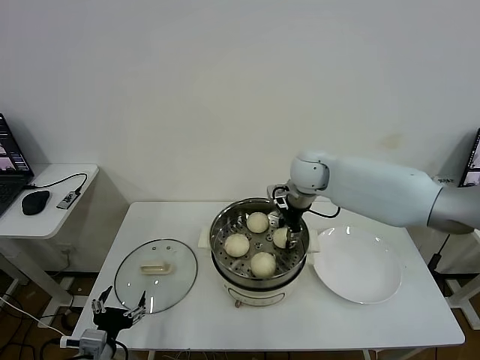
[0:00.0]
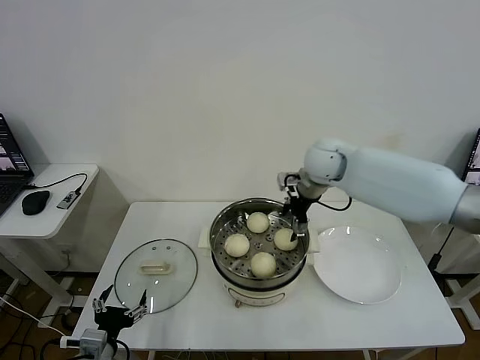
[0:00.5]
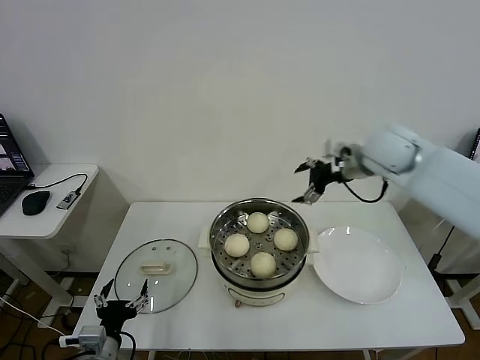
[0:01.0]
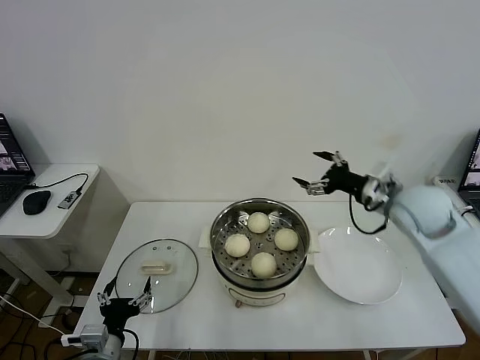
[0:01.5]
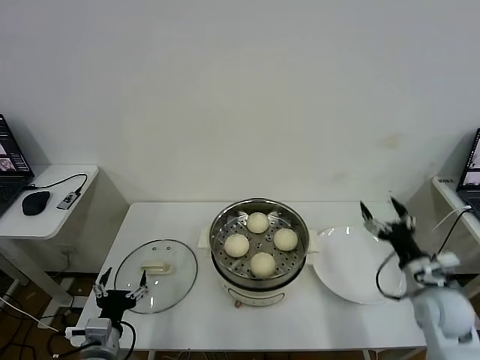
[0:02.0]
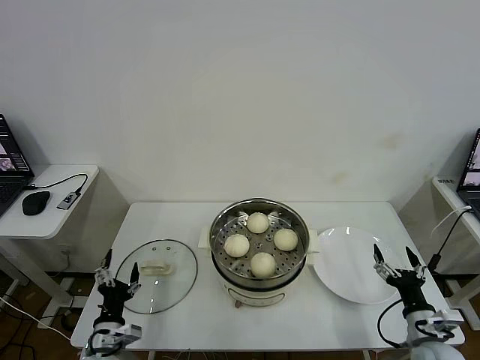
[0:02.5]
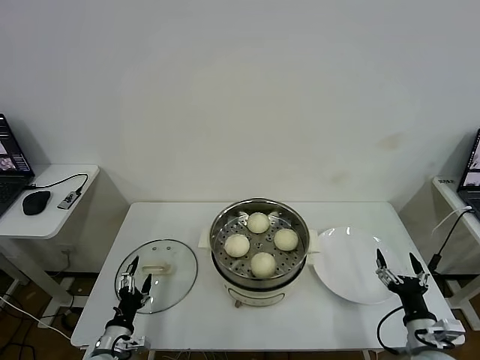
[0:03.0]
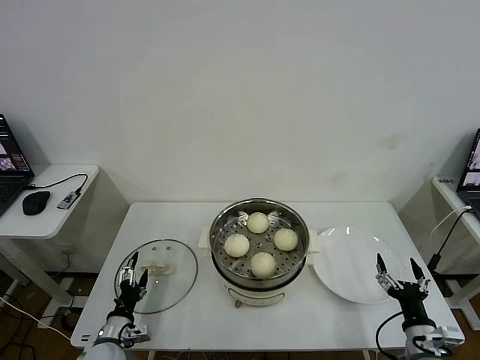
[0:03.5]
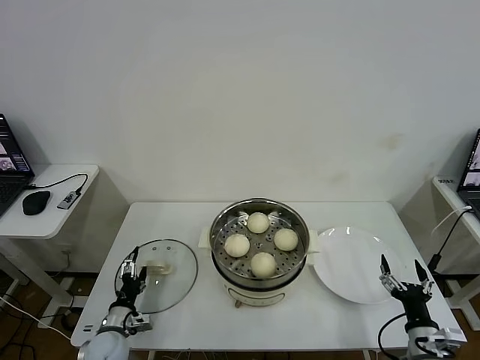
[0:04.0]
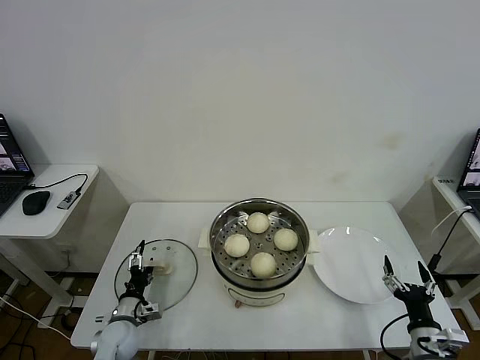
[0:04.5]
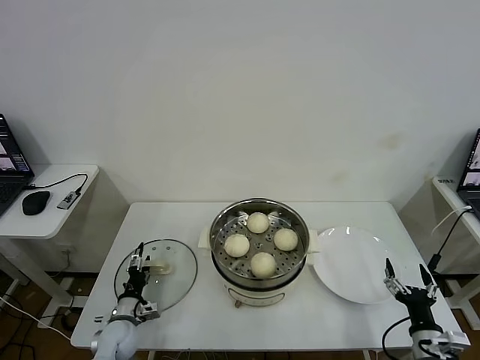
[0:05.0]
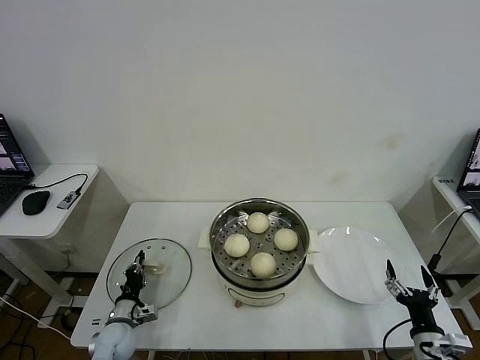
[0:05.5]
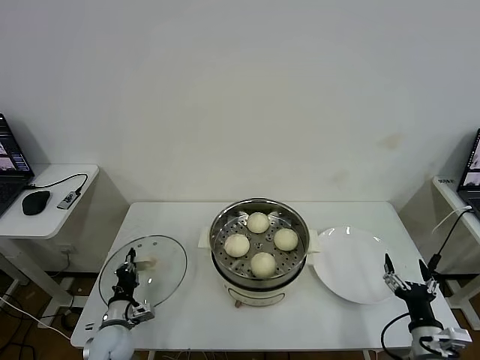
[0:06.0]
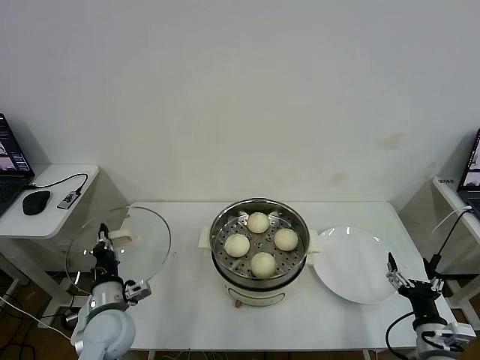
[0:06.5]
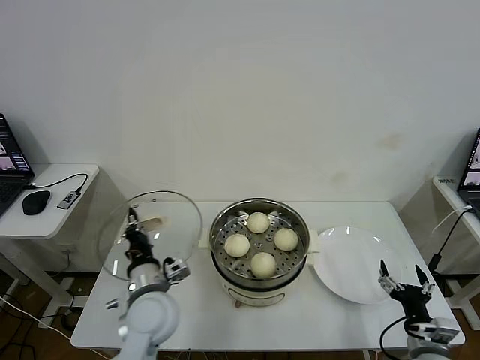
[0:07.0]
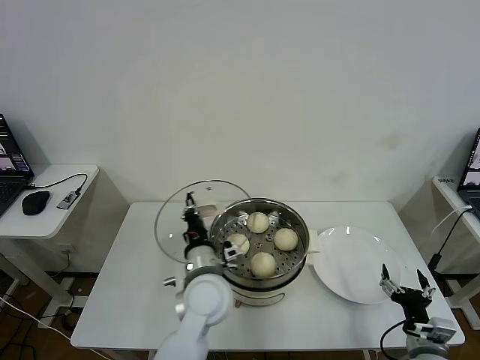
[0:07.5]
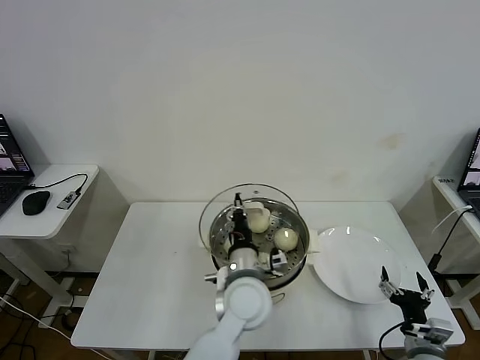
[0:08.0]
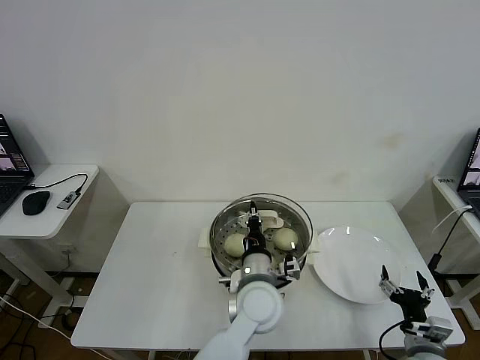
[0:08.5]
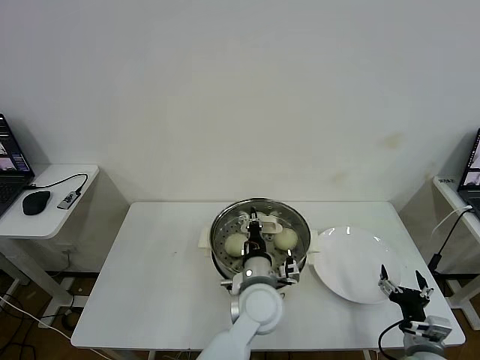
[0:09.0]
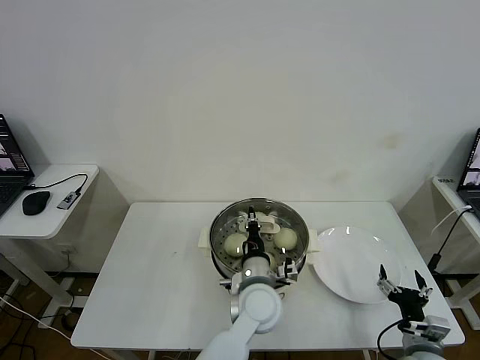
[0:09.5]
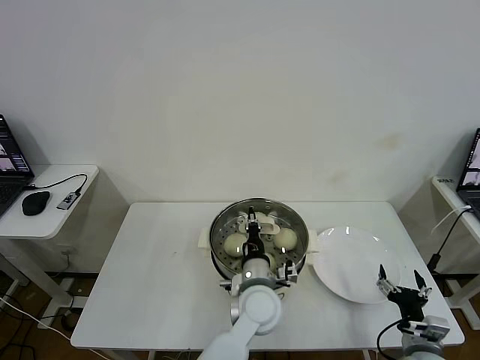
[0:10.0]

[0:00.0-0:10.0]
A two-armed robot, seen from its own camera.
Task of the whole recording: take steamed baozi put them in steamer then cover it.
Step, 0:01.0 to 0:05.5: Grasp the pot lid with left gripper.
0:00.0 to 0:02.0: The right gripper shifts about 40 cm backward, to the right and downward, and opens up.
0:02.0 to 0:04.0: The right gripper heads backward and downward, covering some 15 cm. Meanwhile the left gripper travels downward and forward by roughly 15 cm.
0:04.0 to 0:06.0: The left gripper closes up.
0:06.0 to 0:08.0: The left gripper heads to the right and upward, covering some 40 cm.
0:08.0 to 0:10.0: The left gripper changes place by about 5 cm.

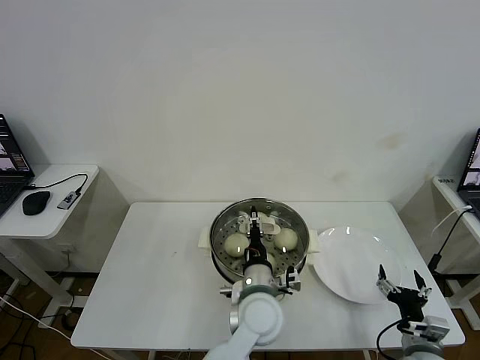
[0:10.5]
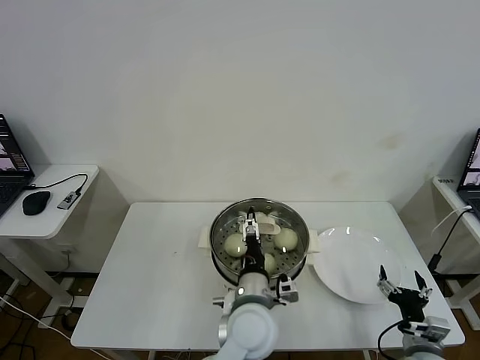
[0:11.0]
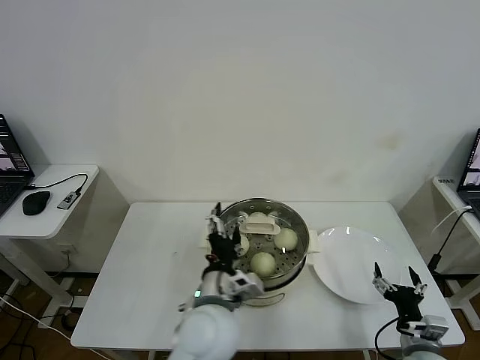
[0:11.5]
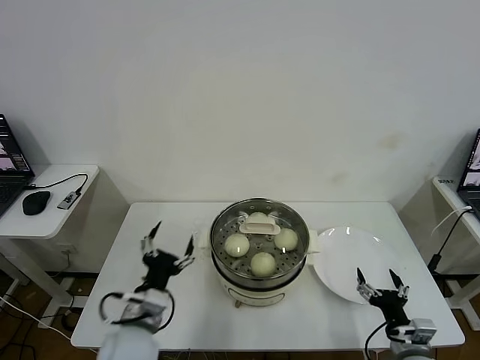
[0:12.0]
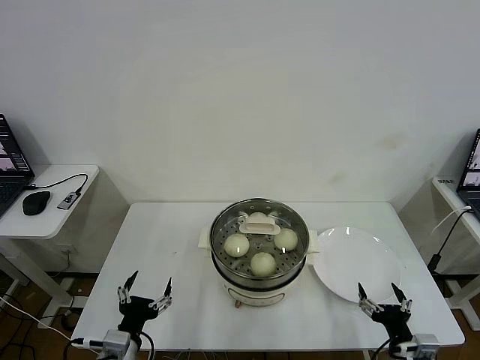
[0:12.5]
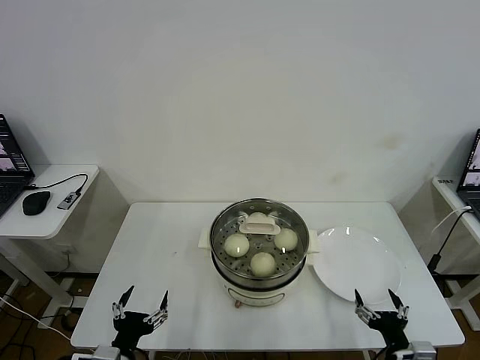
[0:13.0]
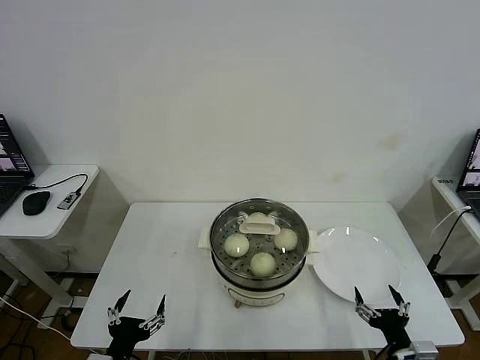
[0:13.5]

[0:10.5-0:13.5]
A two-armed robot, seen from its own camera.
Task of the whole recording: take steamed baozi put them in steamer then cover it.
0:10.5 to 0:12.0: The left gripper heads to the left, covering roughly 20 cm, and opens up.
0:12.0 to 0:13.5: The right gripper goes about 5 cm backward; the left gripper travels backward, to the left and downward by roughly 15 cm.

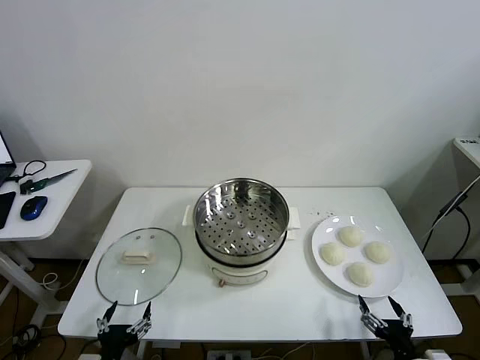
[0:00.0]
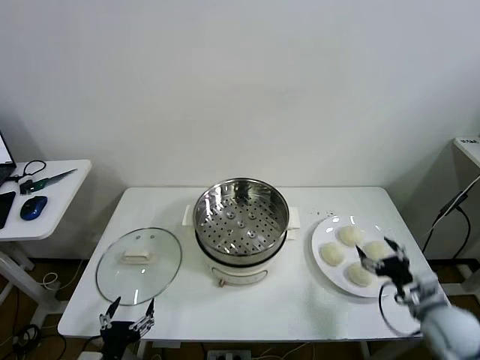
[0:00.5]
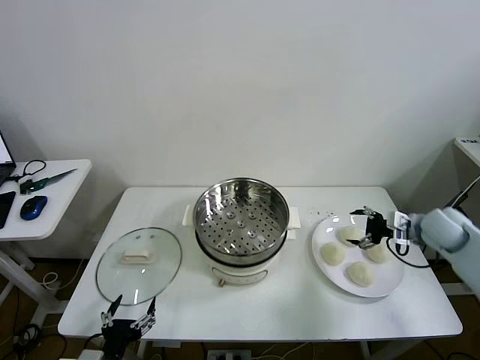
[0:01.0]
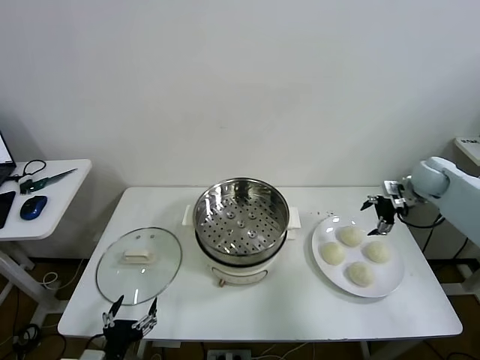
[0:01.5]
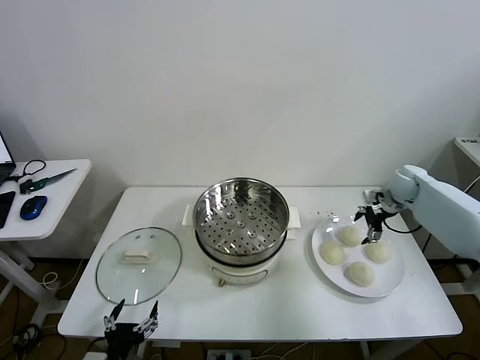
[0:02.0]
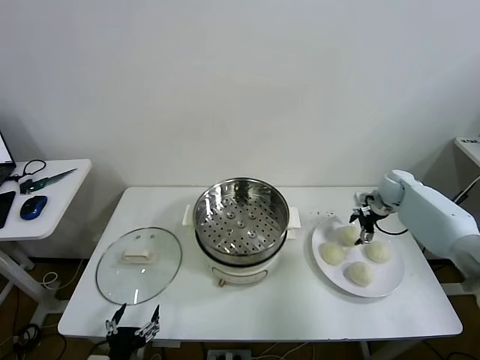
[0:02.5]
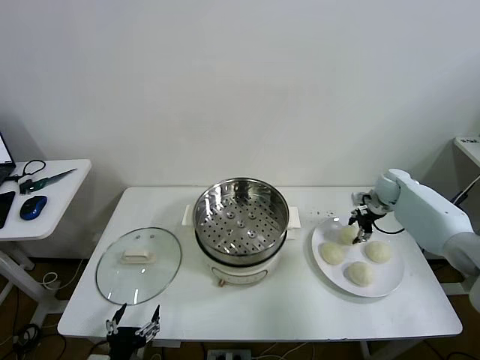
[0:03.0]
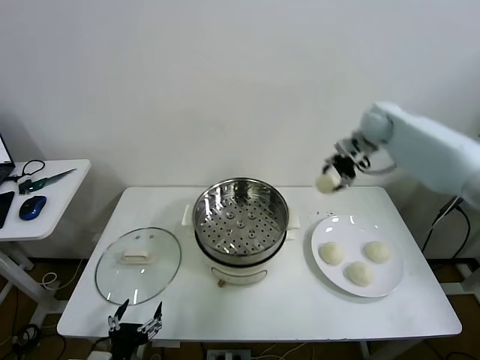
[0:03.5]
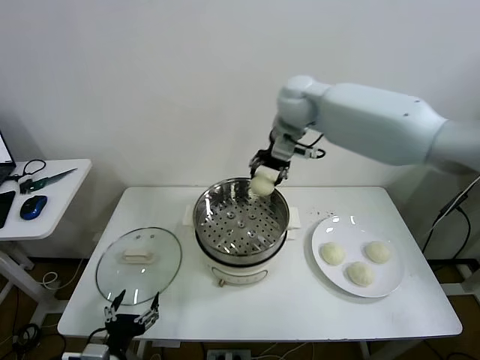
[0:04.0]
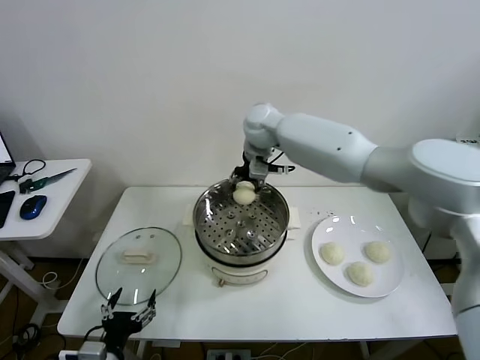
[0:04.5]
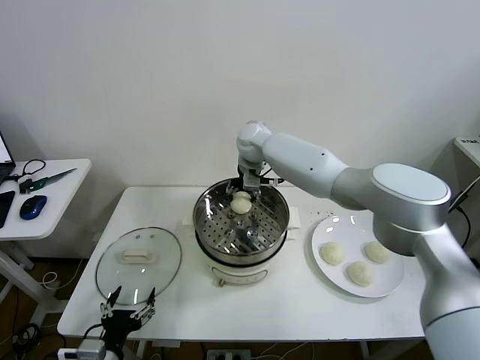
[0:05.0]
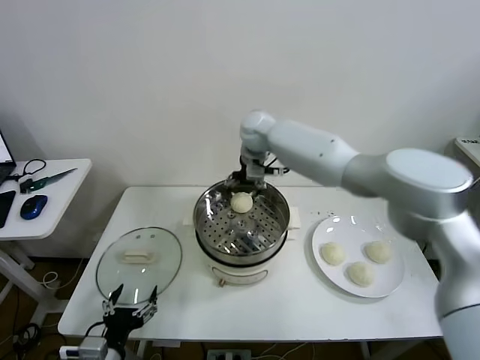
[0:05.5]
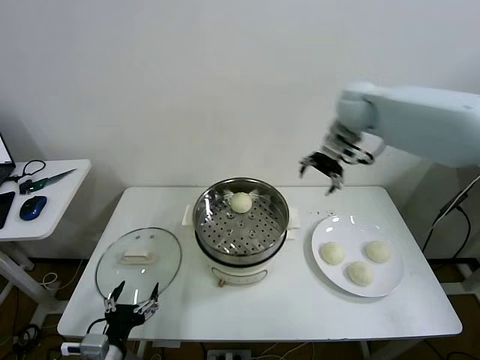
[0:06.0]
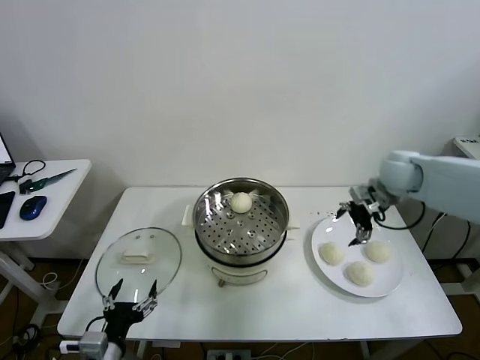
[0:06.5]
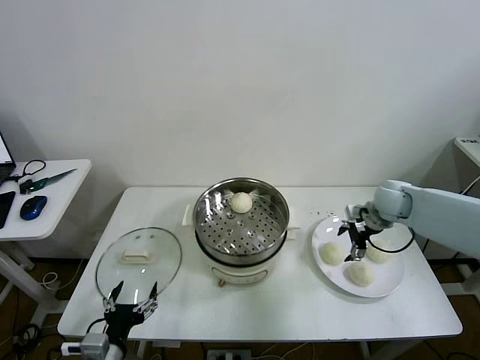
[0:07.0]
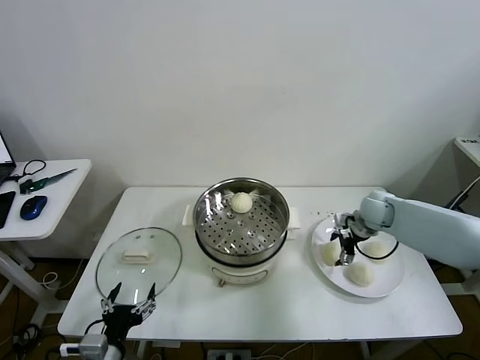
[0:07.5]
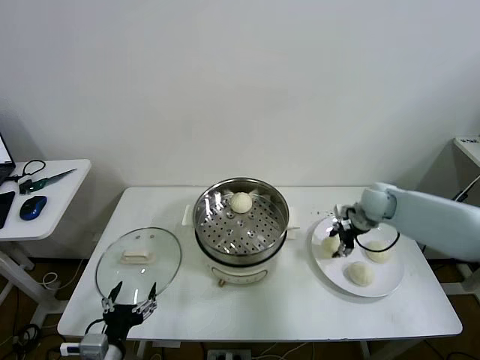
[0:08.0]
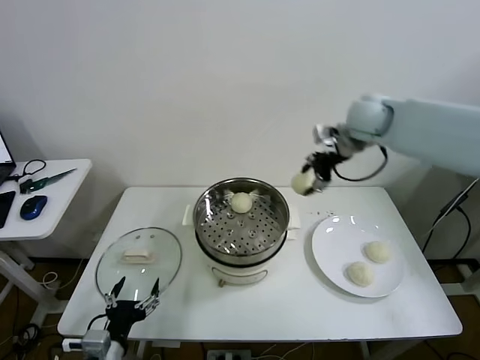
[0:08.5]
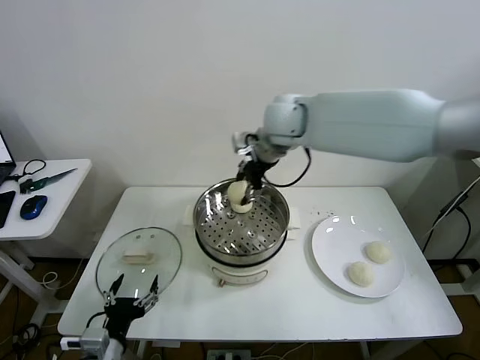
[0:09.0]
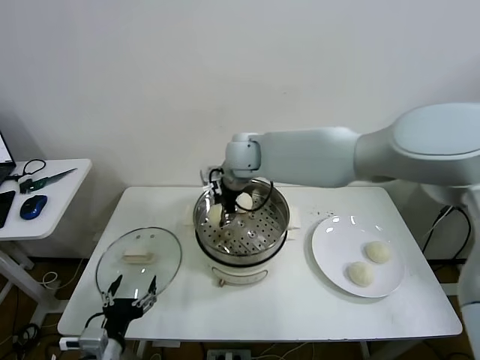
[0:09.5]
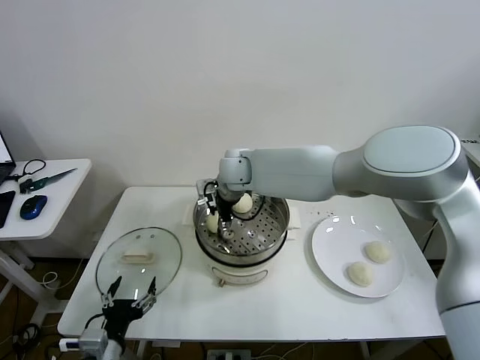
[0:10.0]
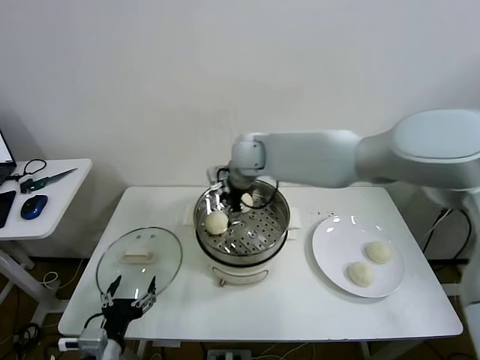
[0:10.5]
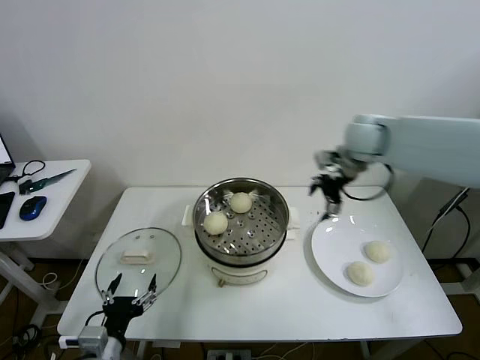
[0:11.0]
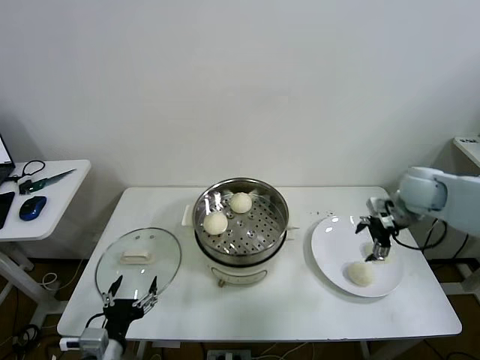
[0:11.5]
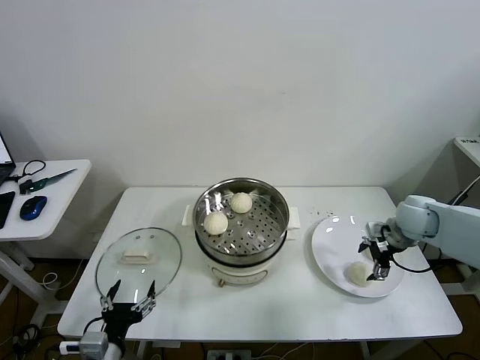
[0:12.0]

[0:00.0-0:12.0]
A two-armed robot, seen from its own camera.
Task of the whole recording: take steamed baozi put them in steamer then cover it.
Step, 0:00.0 to 0:02.5: Grasp the baozi in the plate with right gripper.
Step, 0:03.0 to 0:05.5: Place the baozi on the steamer with right gripper.
Step, 0:06.0 to 0:07.5: Grasp the baozi in the plate with right gripper.
Step, 0:08.0 to 0:10.0: Place the baozi on the steamer with right gripper.
0:02.0 to 0:04.0: The right gripper shifts roughly 40 cm to the left and upward, and closes up.
0:04.0 to 0:06.0: The right gripper travels to the right by some 20 cm, and opens up.
0:06.0 to 0:08.0: The right gripper heads downward, covering some 20 cm, and closes up.
0:08.0 to 0:10.0: The right gripper is displaced to the left by about 35 cm.
0:10.0 to 0:12.0: The right gripper heads to the right, covering approximately 40 cm, and opens up.
